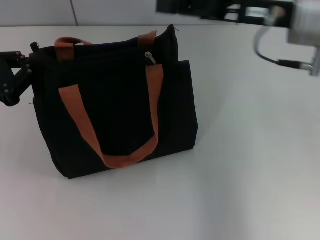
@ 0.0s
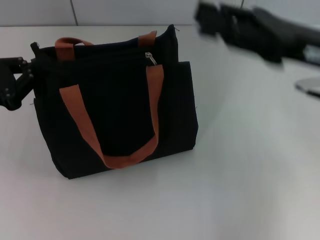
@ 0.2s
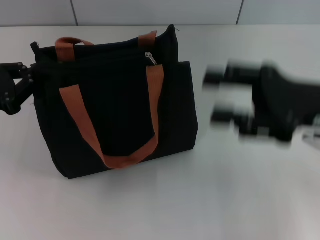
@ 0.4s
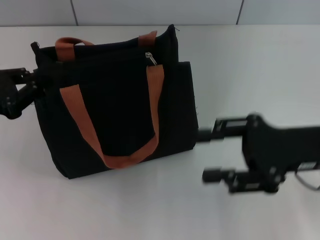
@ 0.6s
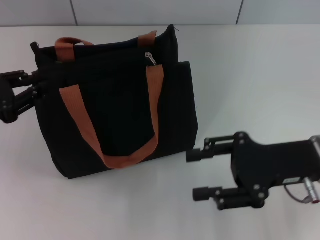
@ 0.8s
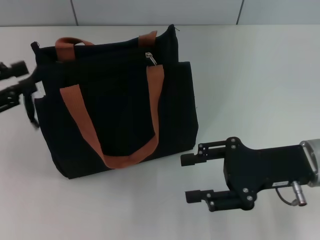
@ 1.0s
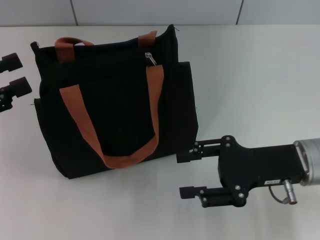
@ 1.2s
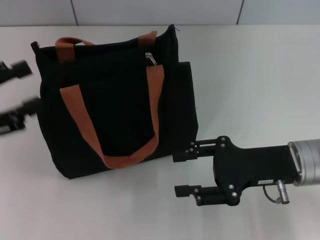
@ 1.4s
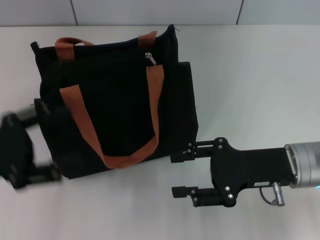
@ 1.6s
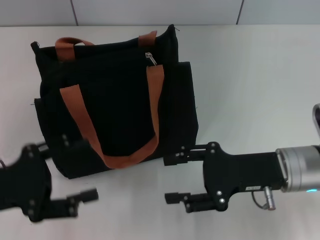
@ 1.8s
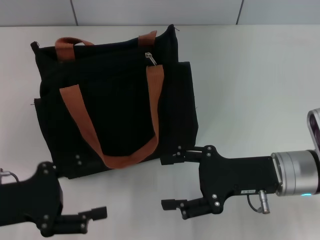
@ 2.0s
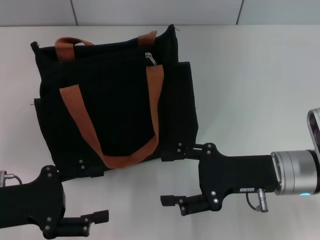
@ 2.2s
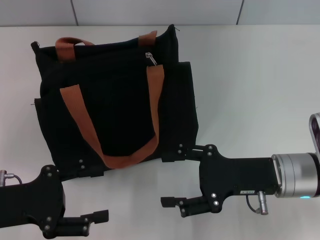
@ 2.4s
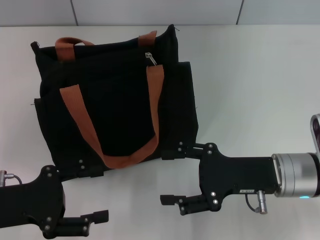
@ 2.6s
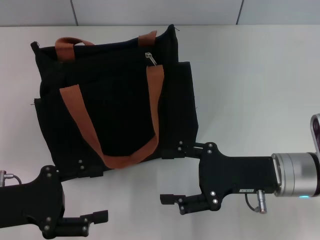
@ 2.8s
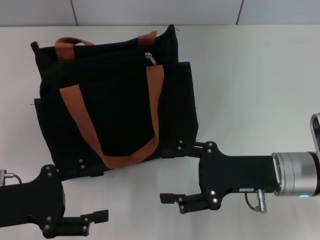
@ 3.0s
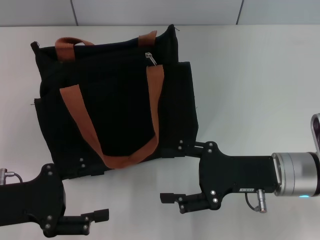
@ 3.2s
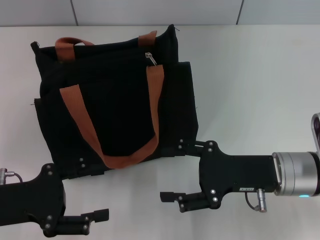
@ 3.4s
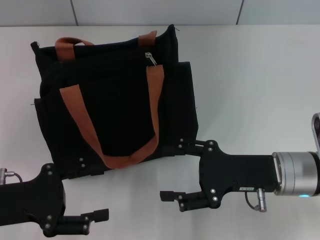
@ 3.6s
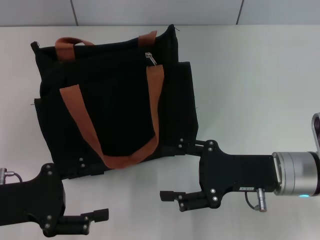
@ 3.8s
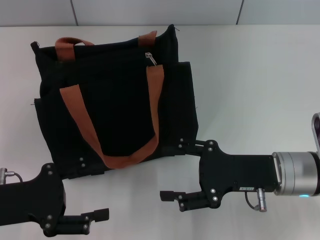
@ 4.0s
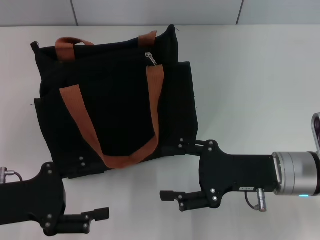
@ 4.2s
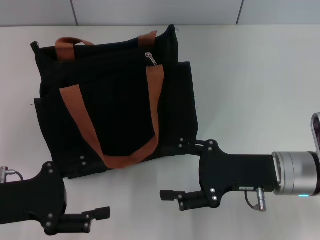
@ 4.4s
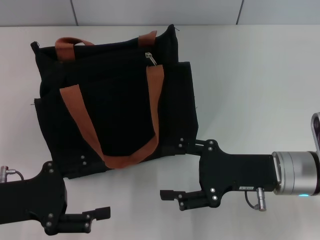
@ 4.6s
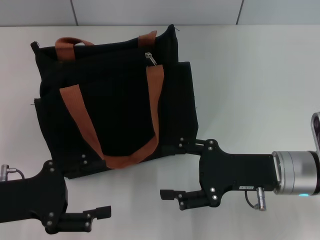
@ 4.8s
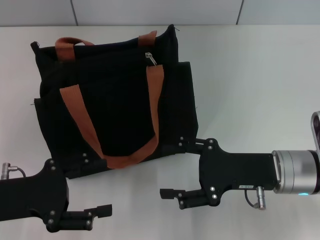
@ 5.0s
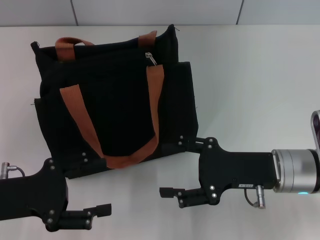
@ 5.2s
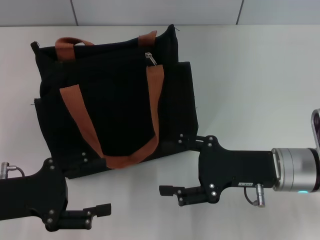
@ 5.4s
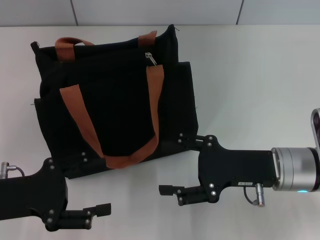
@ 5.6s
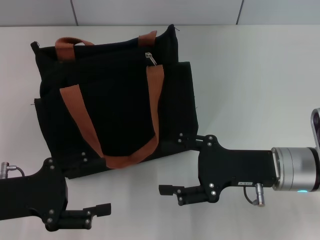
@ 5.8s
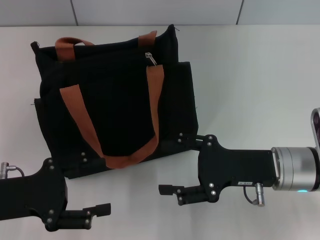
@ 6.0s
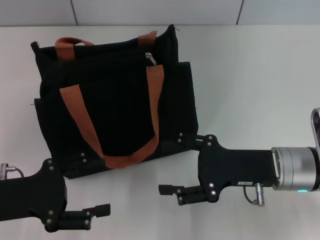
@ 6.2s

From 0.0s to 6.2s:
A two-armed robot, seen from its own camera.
Step, from 0.0s to 1.2s: Grab the zipper with your left hand.
From 0.0s to 1.6s: The left gripper travels backward by about 5 cm, and opens. The right gripper is displaced downward and backward by roughly 15 cm, and opens.
From 1.6s to 3.2s: The left gripper changes place by approximately 5 cm.
From 3.2s to 6.2s: The two grippers keep their place.

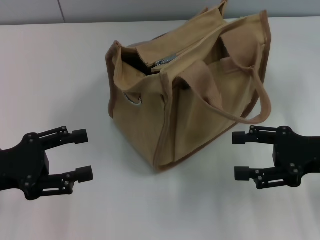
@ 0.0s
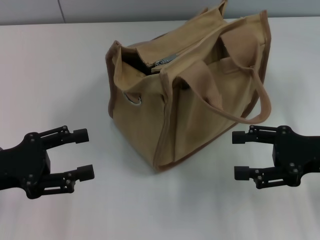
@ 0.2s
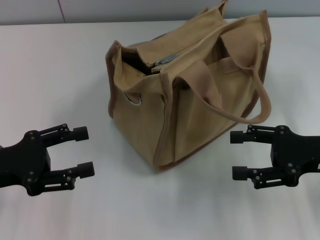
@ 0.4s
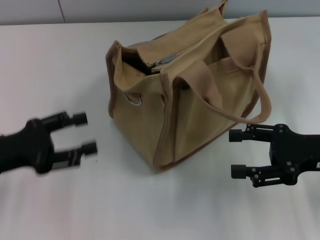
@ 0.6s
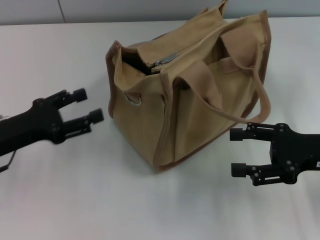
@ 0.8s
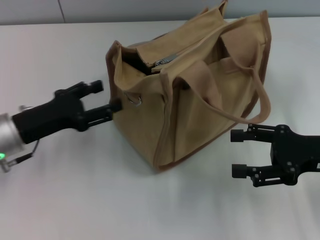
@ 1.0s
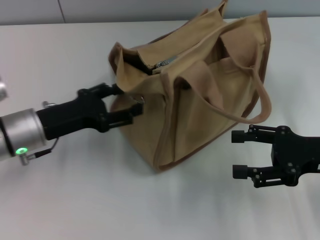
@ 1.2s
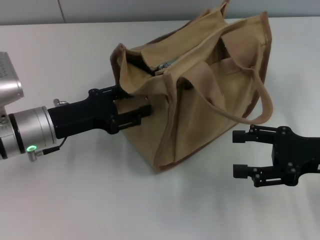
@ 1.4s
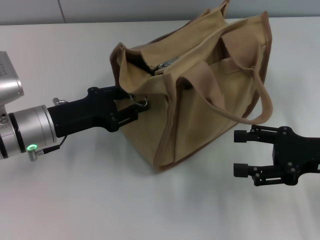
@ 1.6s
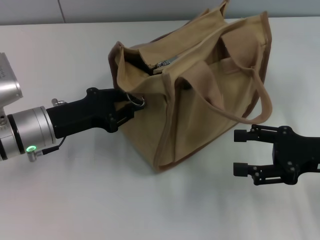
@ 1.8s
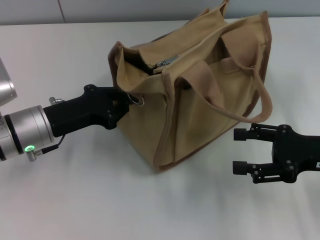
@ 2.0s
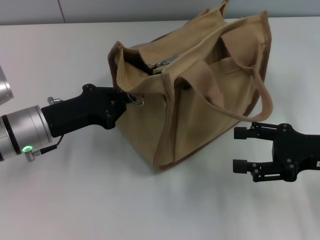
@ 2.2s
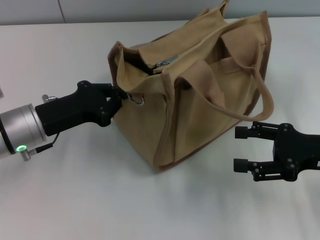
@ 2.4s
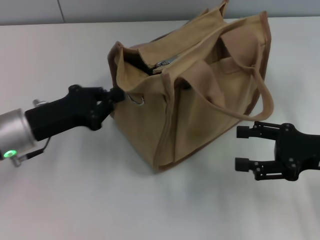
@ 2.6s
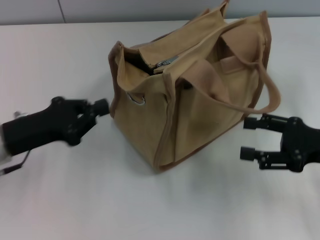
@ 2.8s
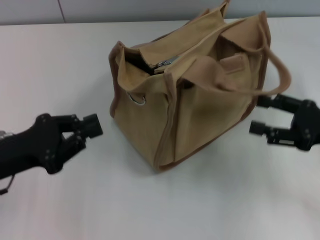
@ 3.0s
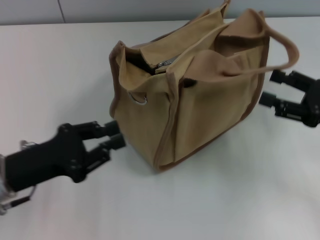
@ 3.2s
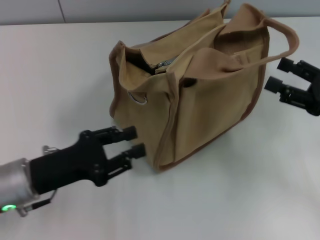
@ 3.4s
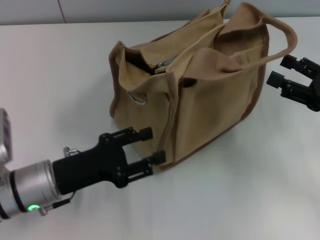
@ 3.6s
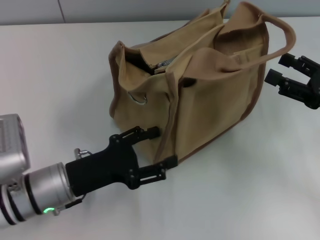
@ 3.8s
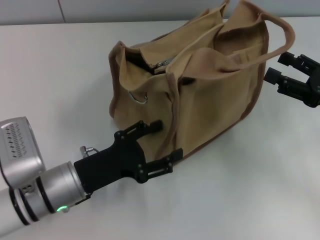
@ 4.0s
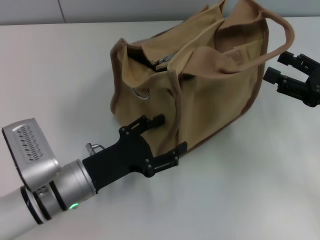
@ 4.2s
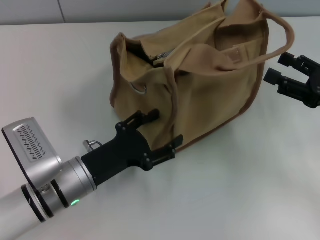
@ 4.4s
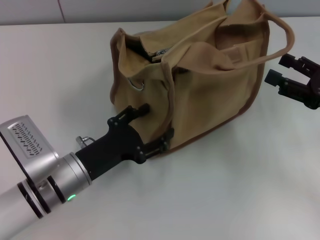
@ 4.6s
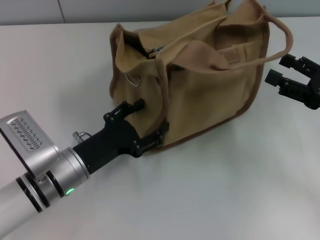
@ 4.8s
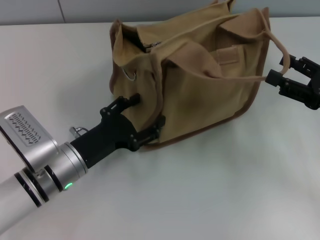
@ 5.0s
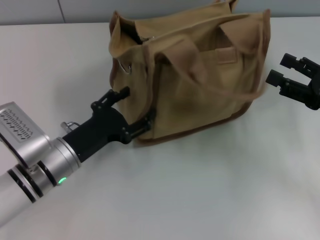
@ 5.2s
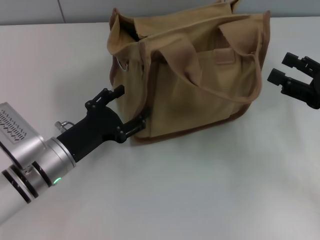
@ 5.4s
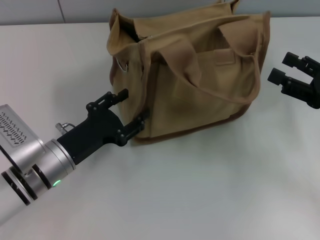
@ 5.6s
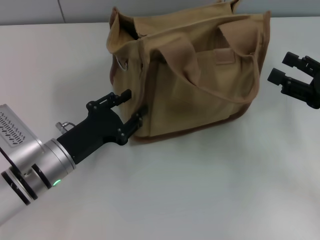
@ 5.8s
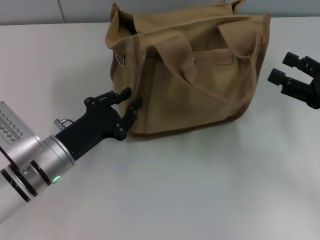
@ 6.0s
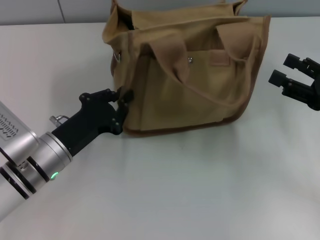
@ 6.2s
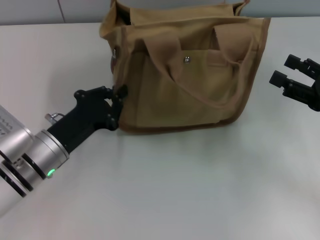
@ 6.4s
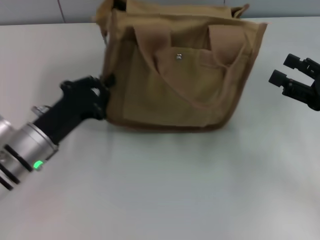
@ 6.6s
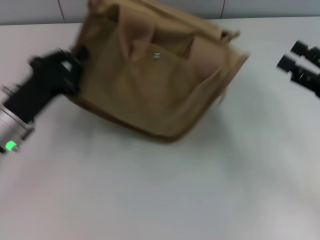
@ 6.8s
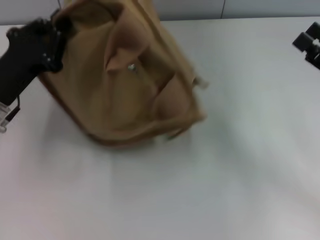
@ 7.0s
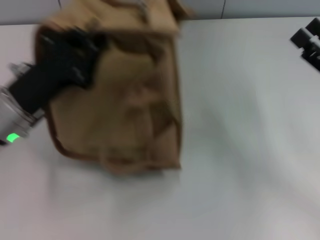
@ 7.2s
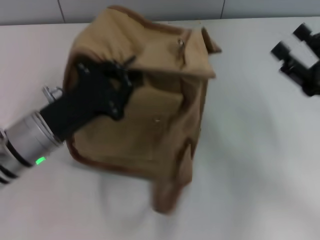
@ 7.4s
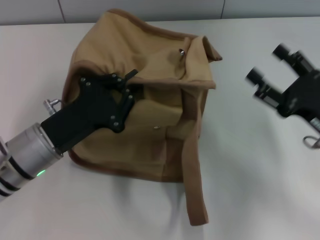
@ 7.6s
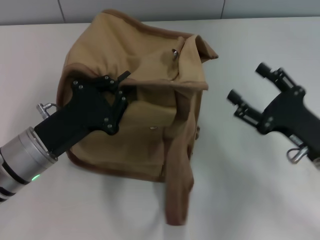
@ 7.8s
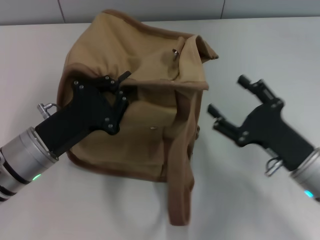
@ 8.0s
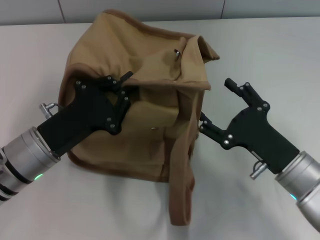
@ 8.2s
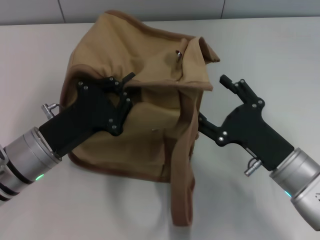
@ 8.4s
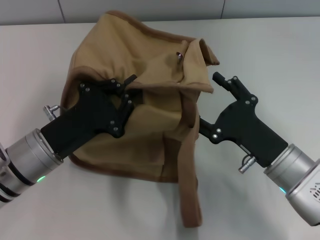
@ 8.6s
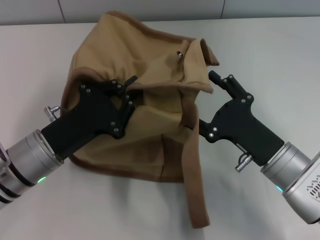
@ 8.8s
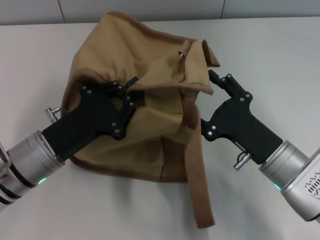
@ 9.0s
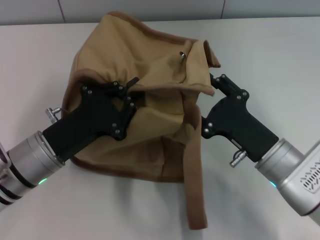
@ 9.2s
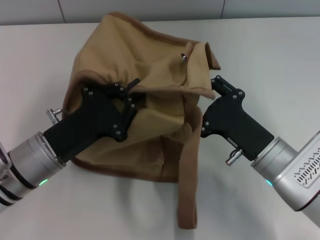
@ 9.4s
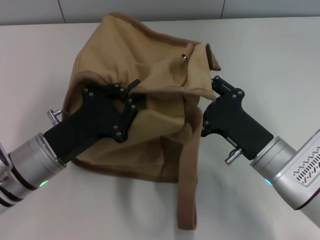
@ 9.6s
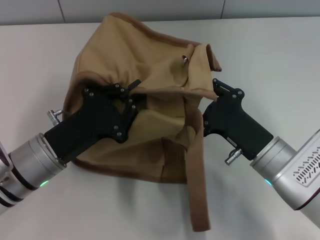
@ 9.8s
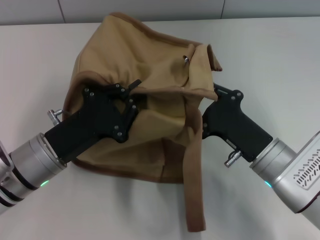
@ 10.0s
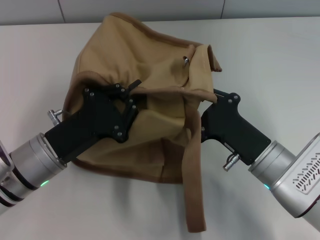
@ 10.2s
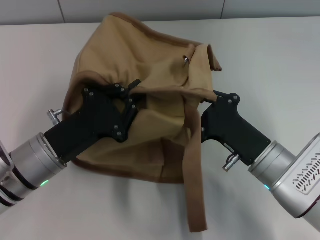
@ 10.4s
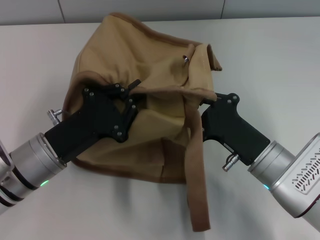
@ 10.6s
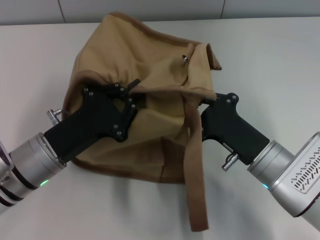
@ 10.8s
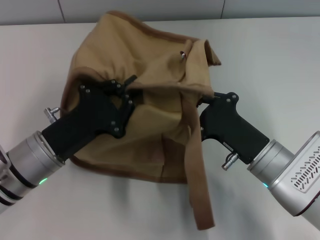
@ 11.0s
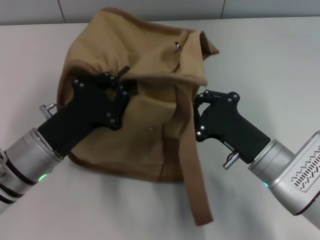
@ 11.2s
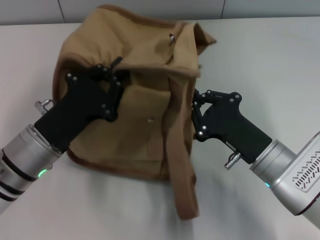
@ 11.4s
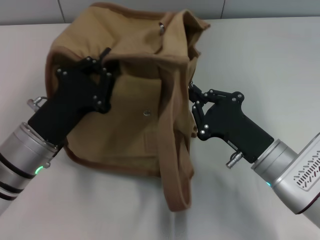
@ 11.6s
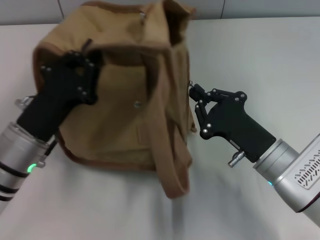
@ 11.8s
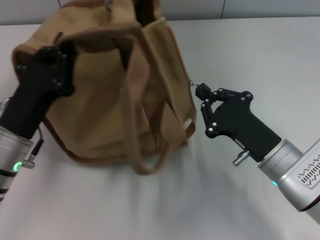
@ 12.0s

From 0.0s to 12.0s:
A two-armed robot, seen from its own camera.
From 0.0s to 1.6s: The left gripper goes roughly 10 cm to the right and forward.
From 1.6s to 3.0s: The left gripper travels backward and to the left by roughly 10 cm, and closes.
From 3.0s to 4.4s: The left gripper goes some 15 cm to the right and downward, and opens its fingers.
From 4.4s to 6.0s: The left gripper closes its fingers.
From 6.0s to 7.6s: The right gripper travels to the left by approximately 5 cm. The left gripper closes.
From 7.6s to 9.0s: The right gripper heads to the left, covering approximately 10 cm.
From 9.0s to 10.4s: The right gripper closes.

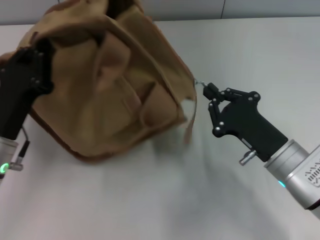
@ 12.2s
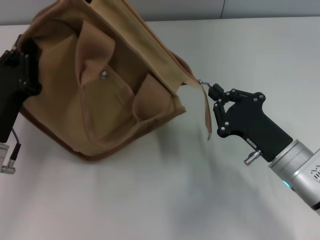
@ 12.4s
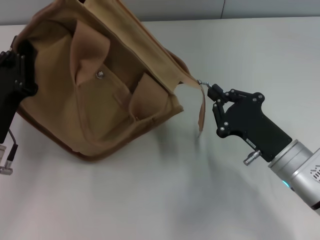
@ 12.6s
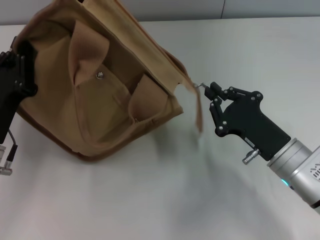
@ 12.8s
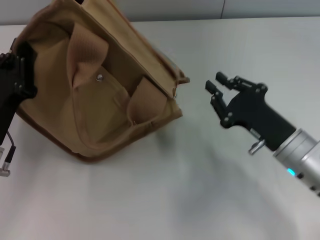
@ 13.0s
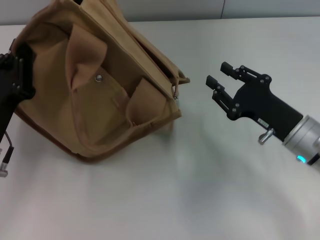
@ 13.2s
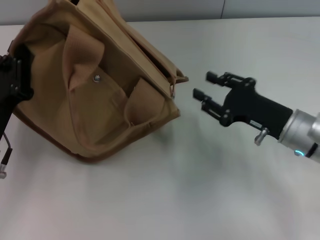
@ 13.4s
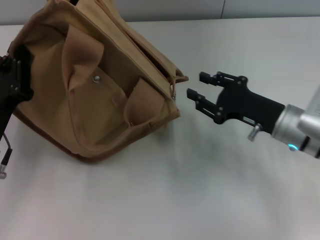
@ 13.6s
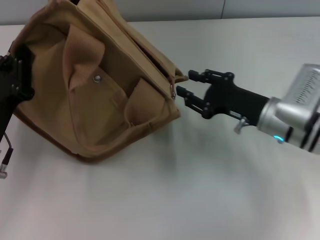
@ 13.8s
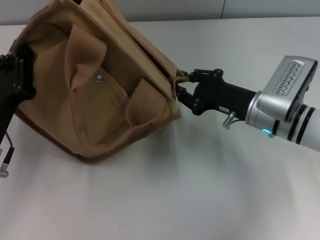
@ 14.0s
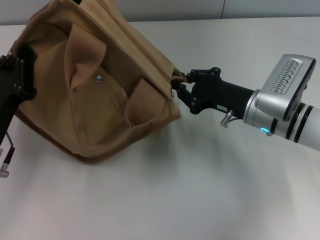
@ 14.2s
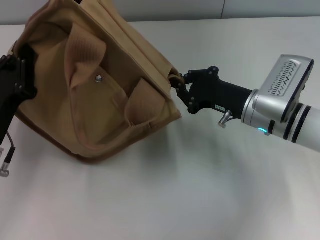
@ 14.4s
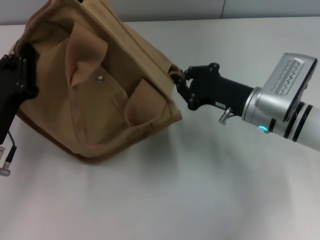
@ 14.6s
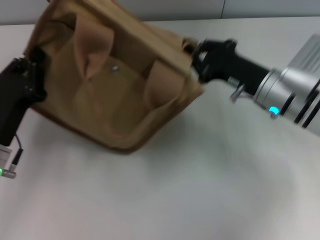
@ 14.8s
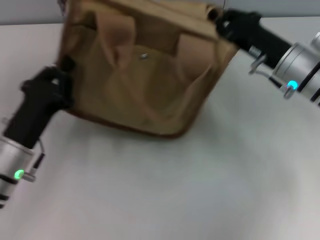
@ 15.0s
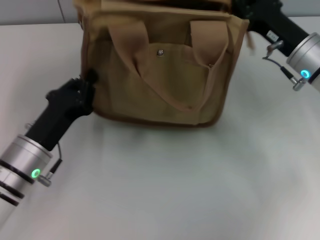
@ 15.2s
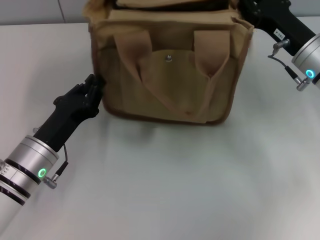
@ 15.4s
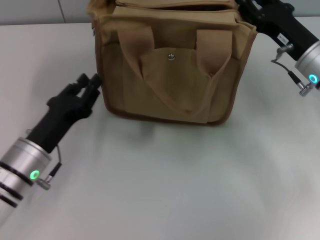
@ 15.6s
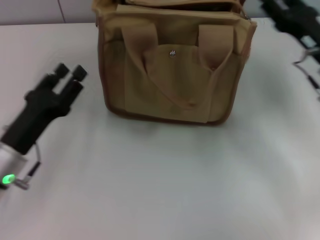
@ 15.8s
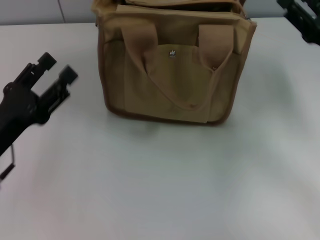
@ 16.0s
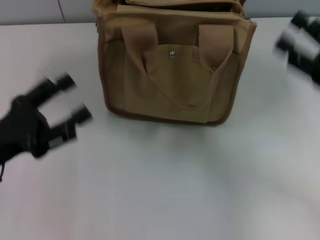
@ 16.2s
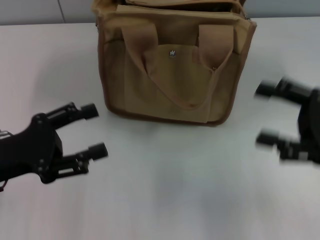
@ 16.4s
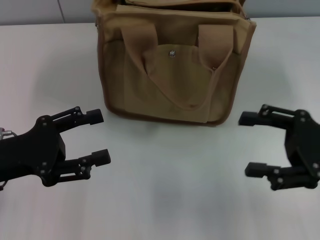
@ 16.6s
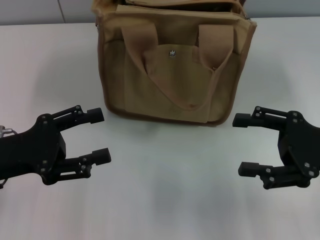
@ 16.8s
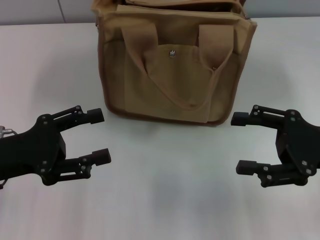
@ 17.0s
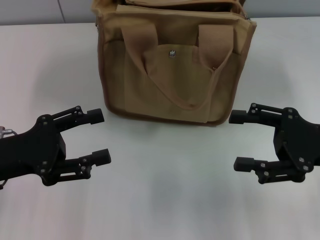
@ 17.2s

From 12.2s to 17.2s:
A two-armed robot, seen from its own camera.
Step, from 12.2s to 15.4s: Grab the bag with your left hand.
From 12.2s to 13.8s: The right gripper moves forward, roughly 10 cm, and opens up.
From 13.8s to 15.6s: The left gripper ends up roughly 5 cm from where it was; the right gripper changes place by some 10 cm.
From 15.6s to 17.2s: The left gripper is displaced upward and to the left by about 10 cm, and opens up. The right gripper shifts approximately 10 cm backward, and opens up.
